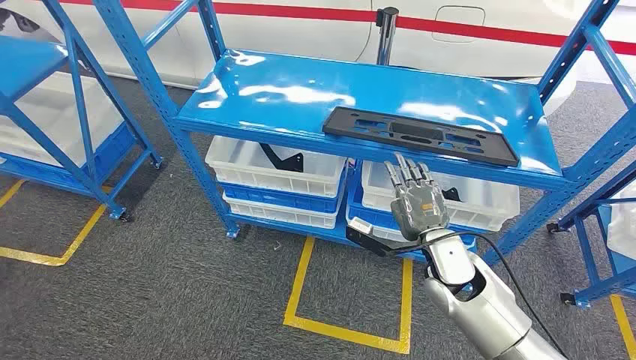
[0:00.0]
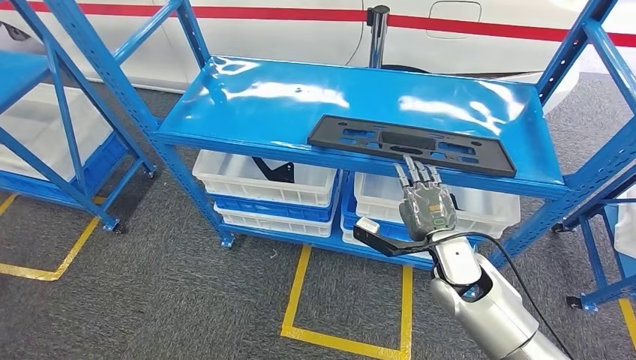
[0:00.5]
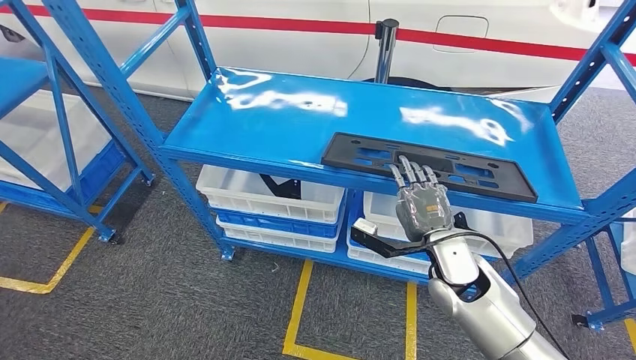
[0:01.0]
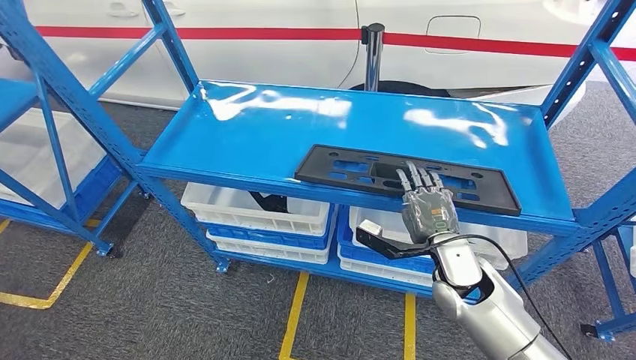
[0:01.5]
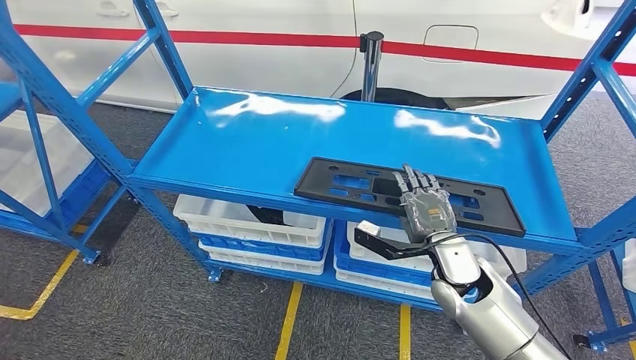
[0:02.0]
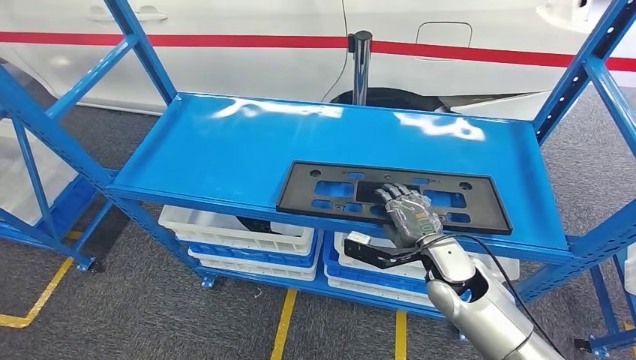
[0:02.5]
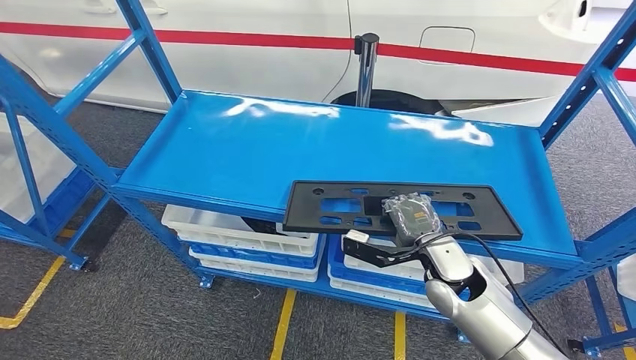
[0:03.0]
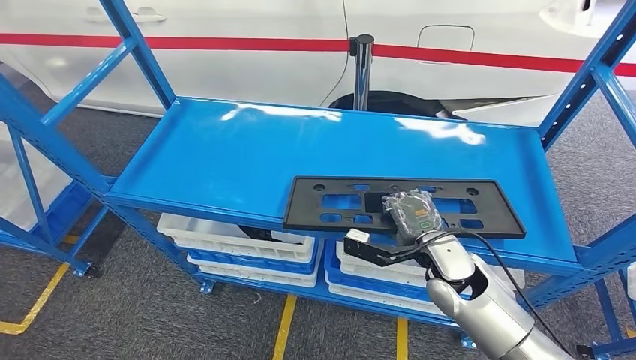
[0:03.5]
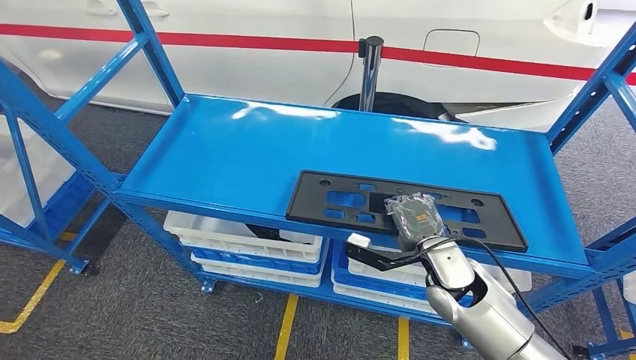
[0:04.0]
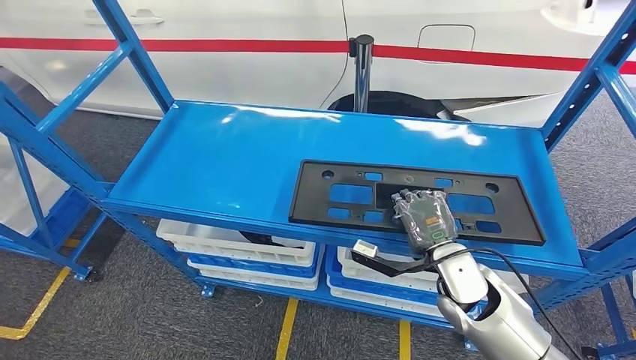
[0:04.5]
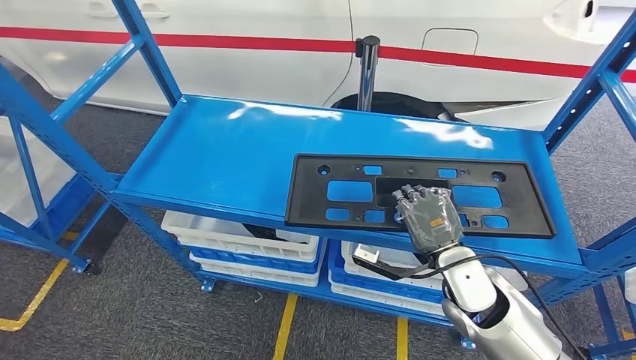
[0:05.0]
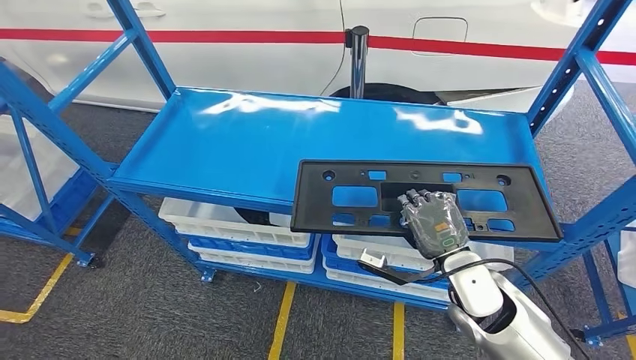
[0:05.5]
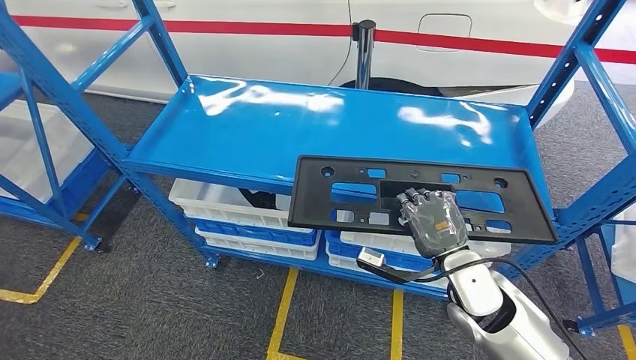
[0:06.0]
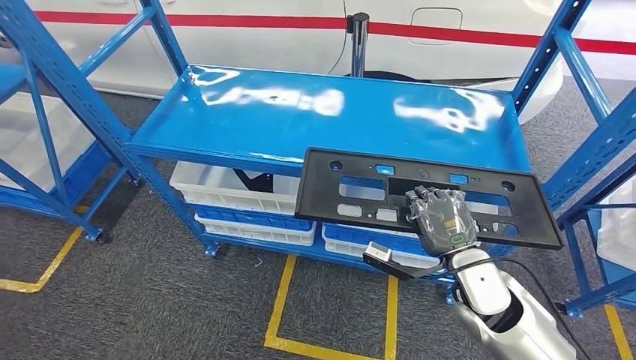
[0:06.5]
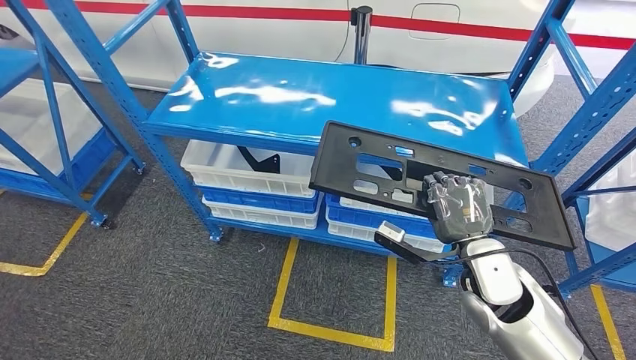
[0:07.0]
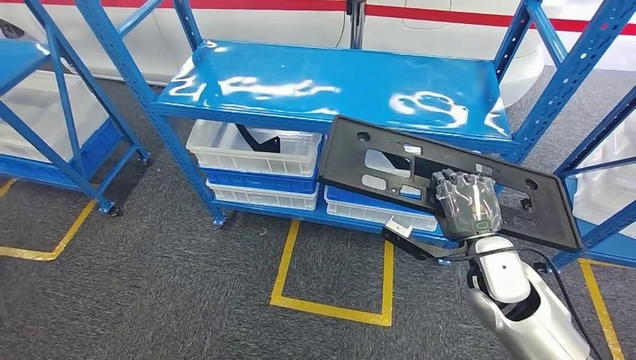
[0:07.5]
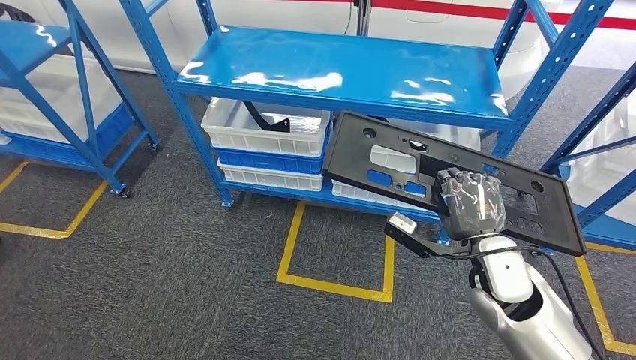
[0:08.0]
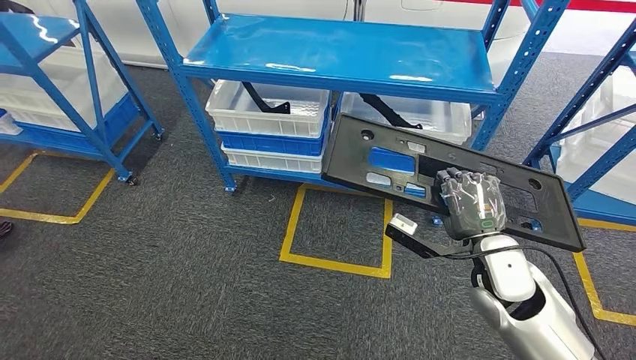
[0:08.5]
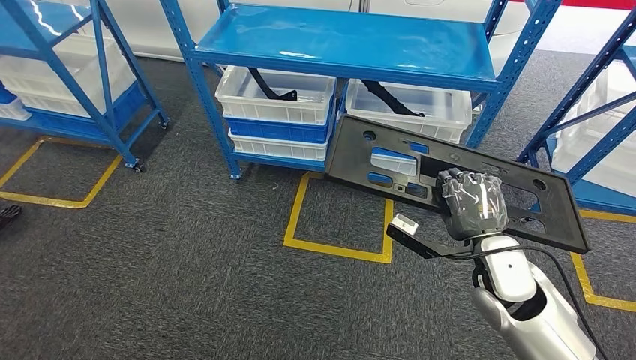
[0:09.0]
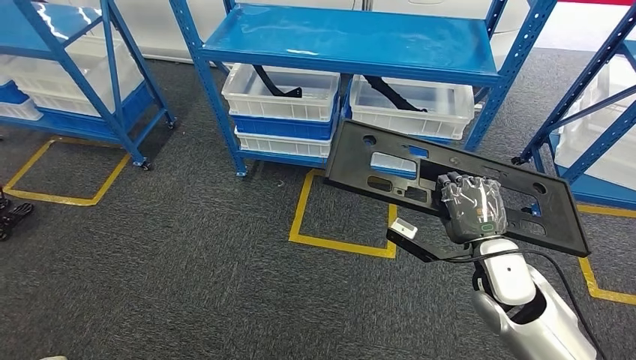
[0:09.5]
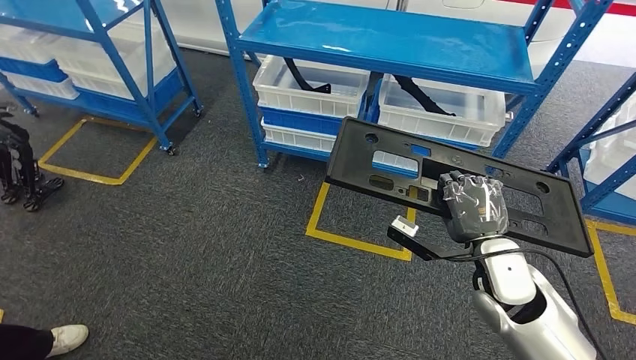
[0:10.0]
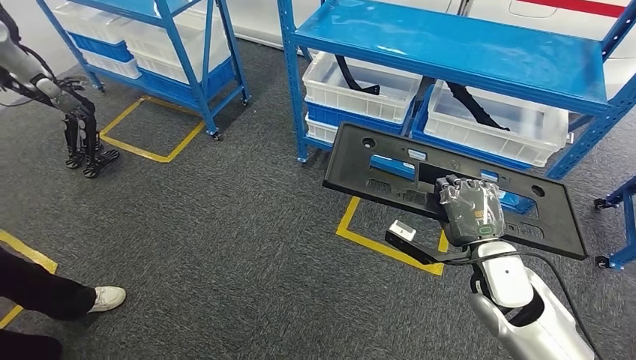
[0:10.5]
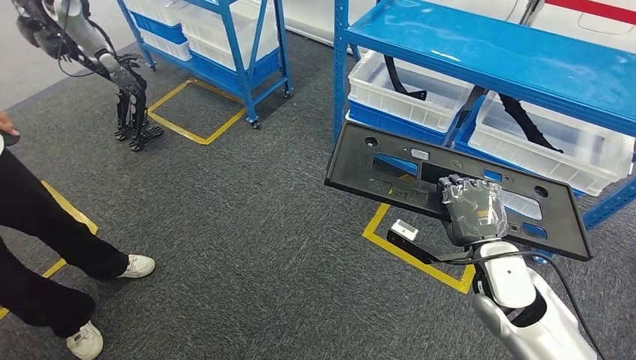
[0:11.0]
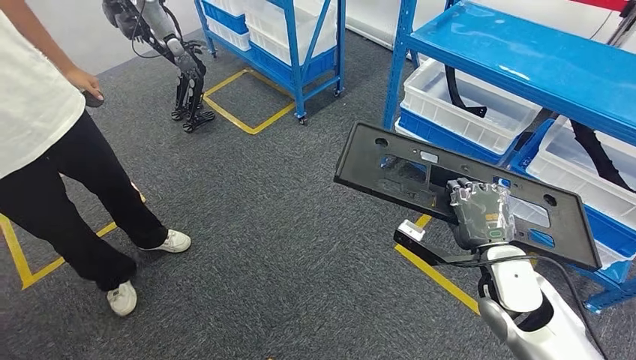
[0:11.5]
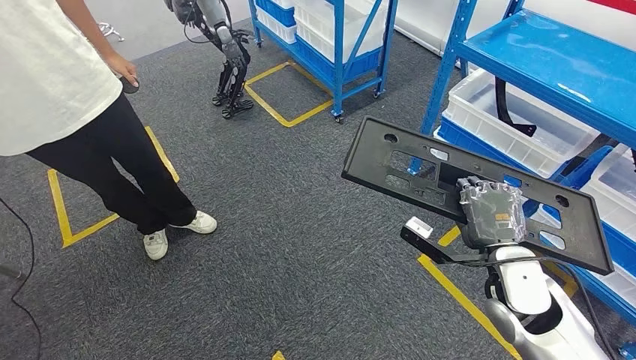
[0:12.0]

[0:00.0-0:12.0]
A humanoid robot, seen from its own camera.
Step, 0:00.0 to 0:07.5: Pick up the large material from the shelf.

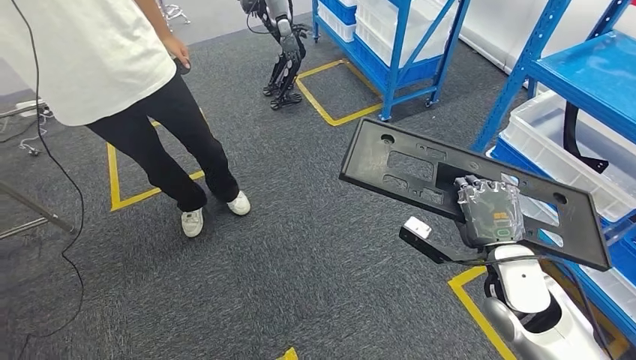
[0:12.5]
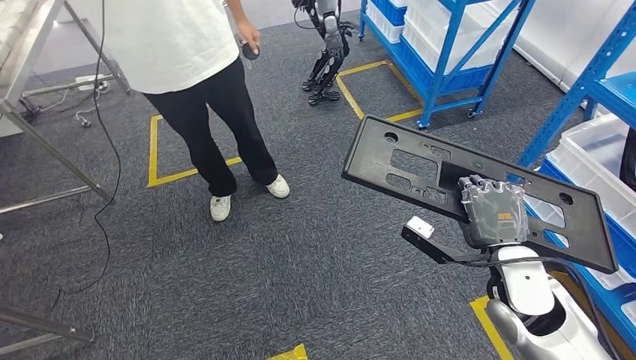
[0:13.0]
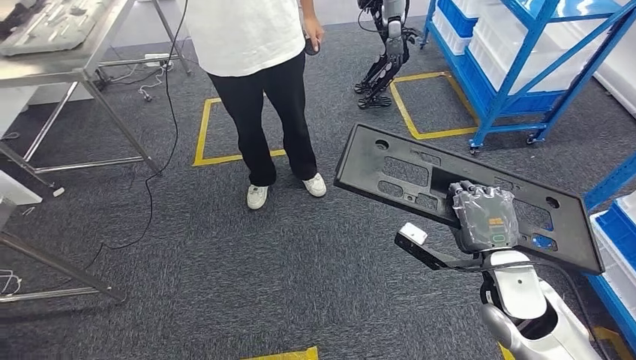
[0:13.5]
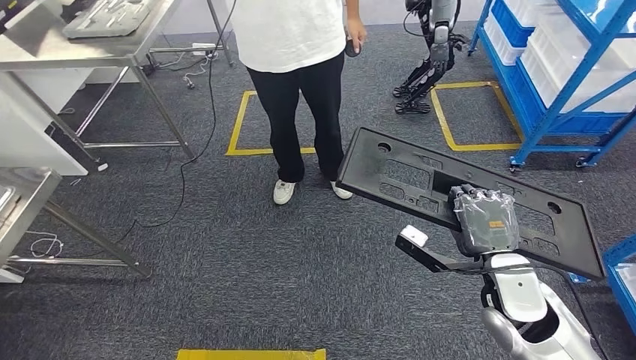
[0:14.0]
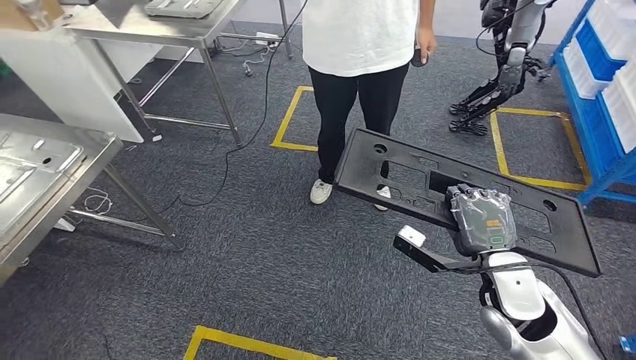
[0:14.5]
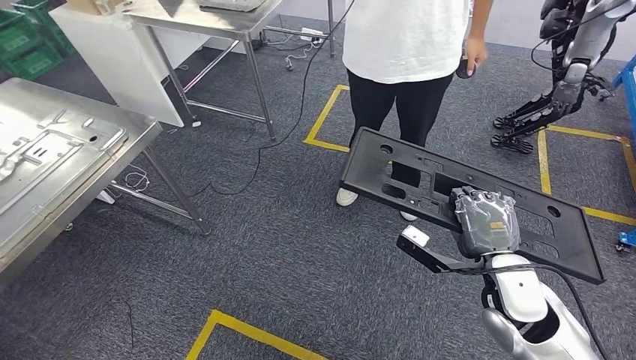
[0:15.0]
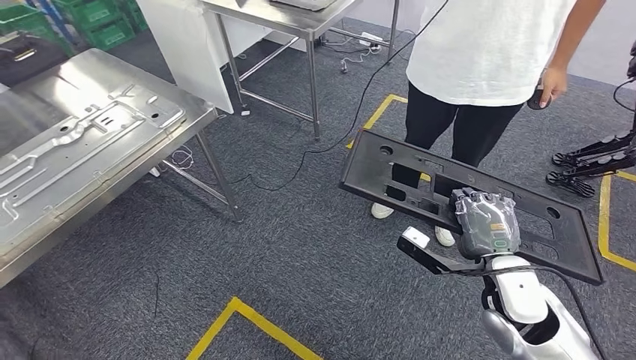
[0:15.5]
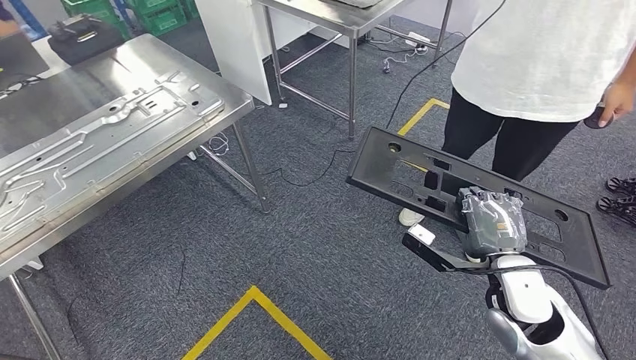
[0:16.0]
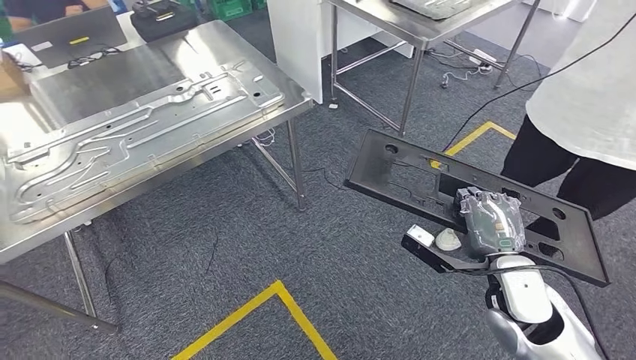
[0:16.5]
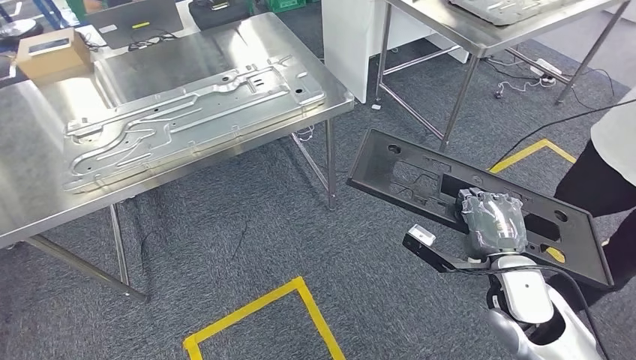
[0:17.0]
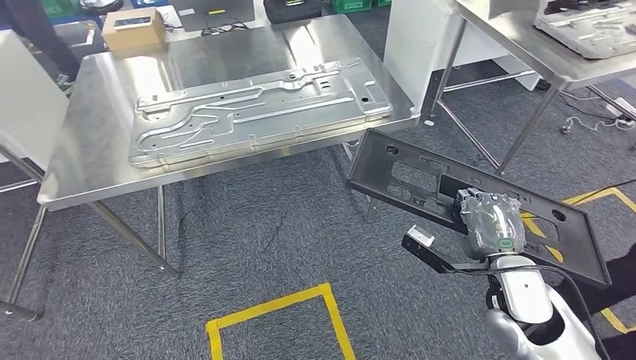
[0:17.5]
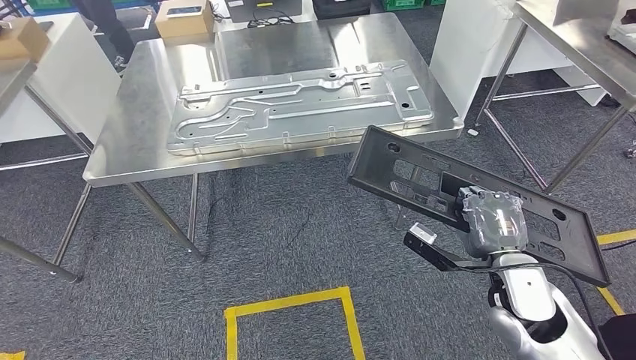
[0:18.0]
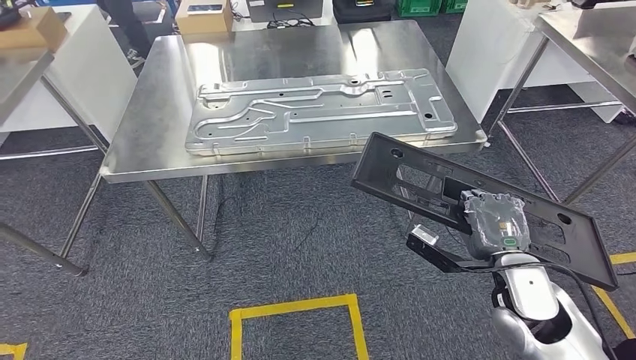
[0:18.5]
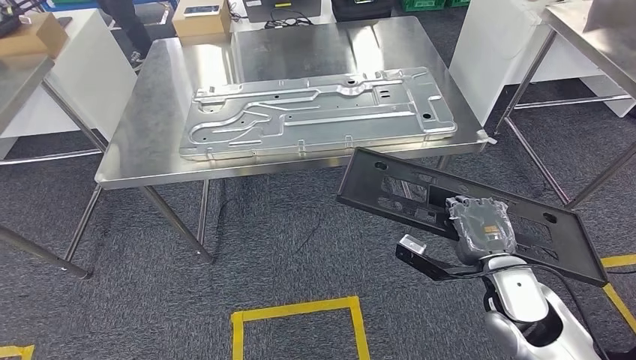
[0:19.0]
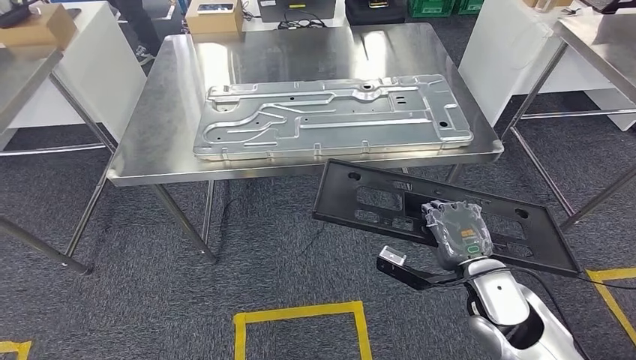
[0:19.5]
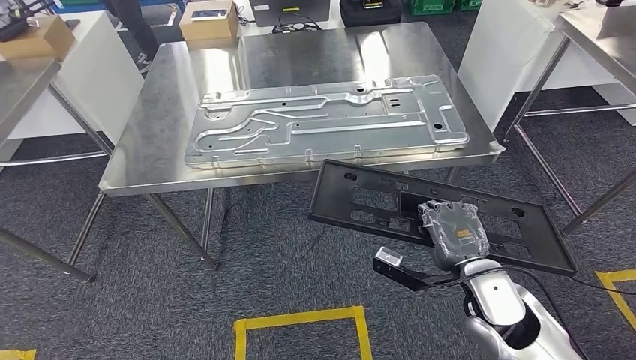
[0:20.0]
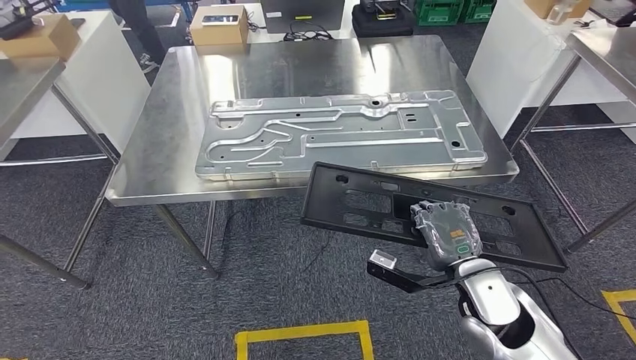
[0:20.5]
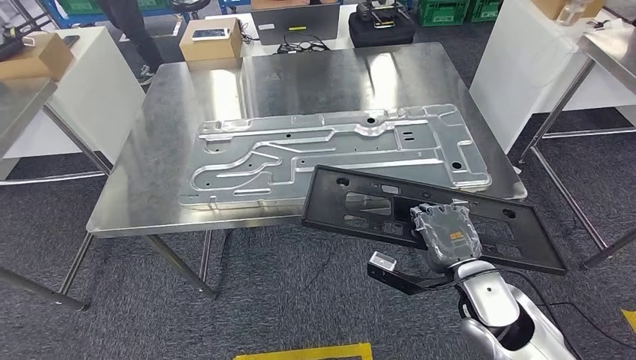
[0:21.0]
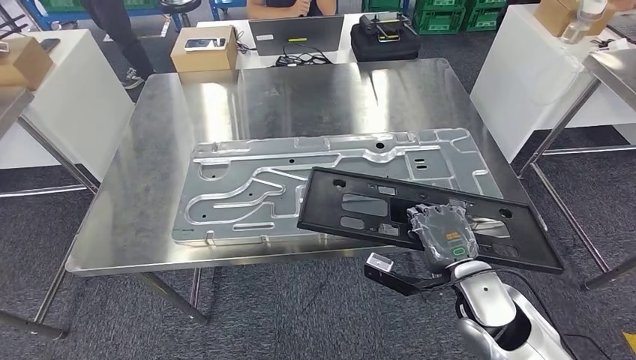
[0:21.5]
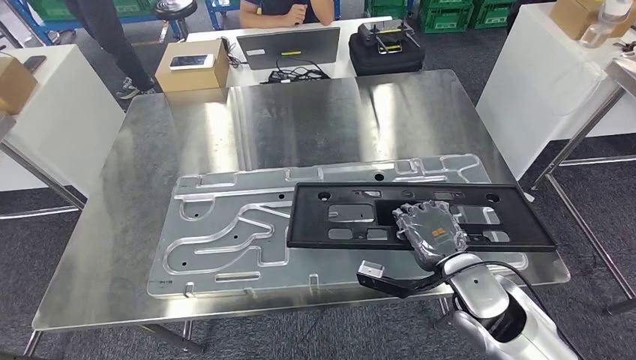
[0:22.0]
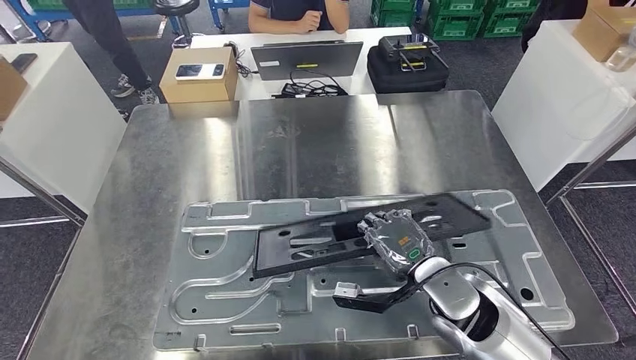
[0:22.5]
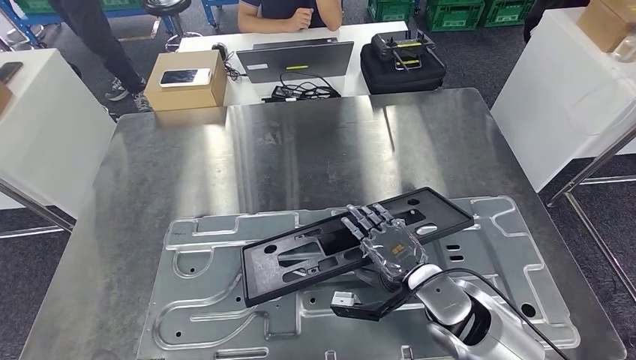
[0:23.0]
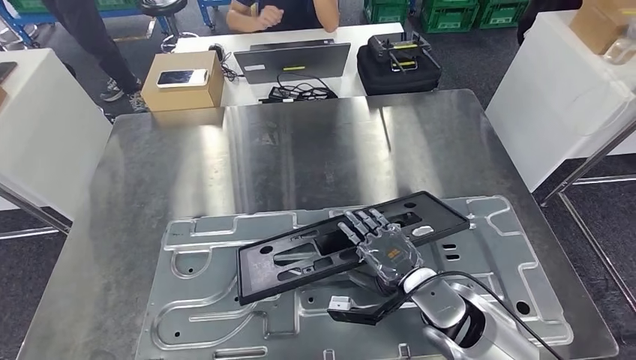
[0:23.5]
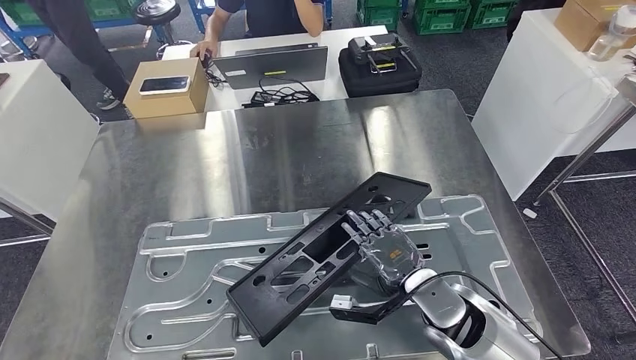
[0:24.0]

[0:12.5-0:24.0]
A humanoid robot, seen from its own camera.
Step, 0:12.5 to 0:20.0: Move the large material to the workbench.
